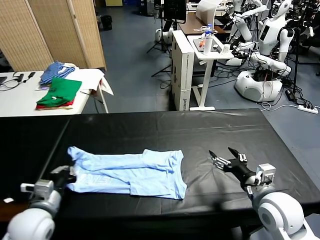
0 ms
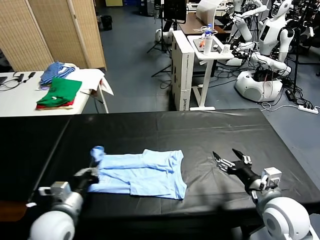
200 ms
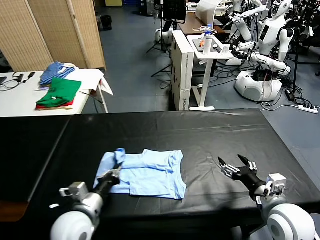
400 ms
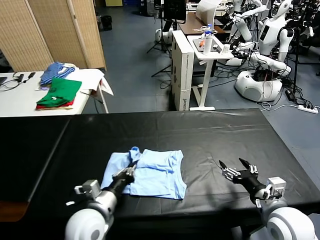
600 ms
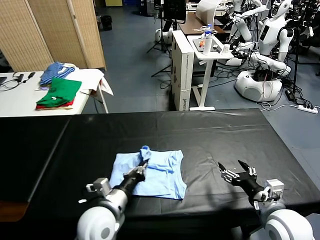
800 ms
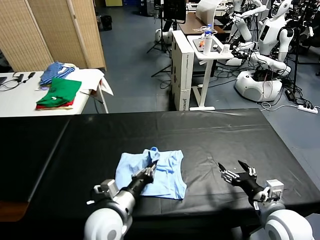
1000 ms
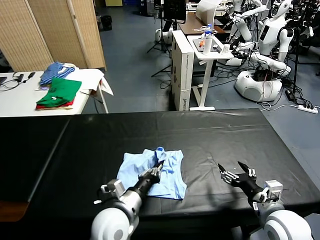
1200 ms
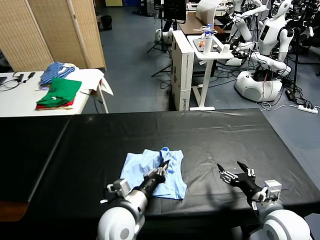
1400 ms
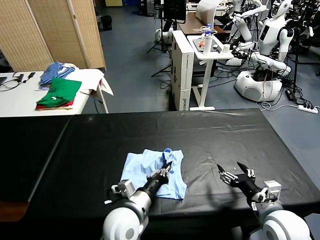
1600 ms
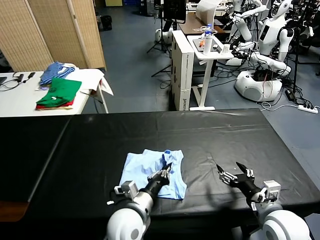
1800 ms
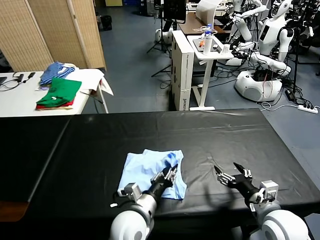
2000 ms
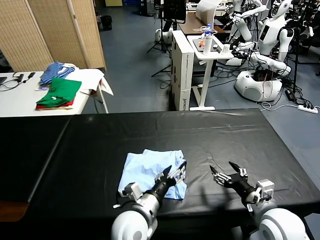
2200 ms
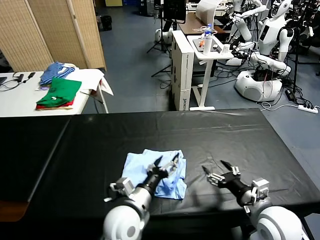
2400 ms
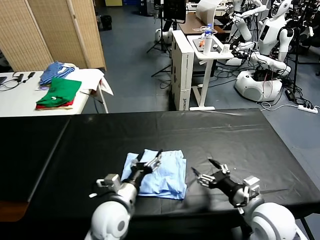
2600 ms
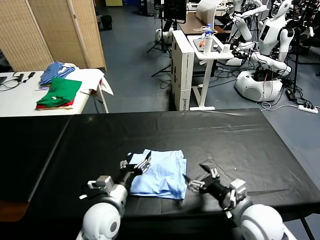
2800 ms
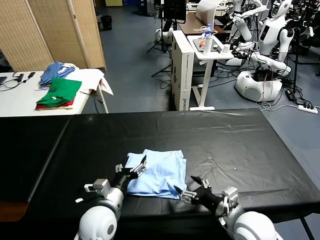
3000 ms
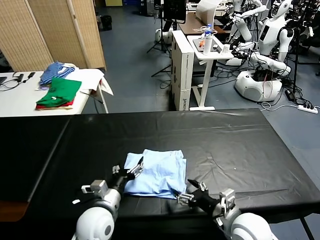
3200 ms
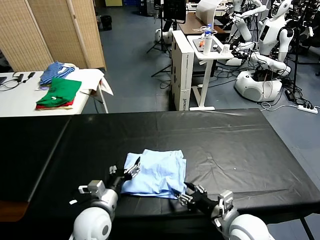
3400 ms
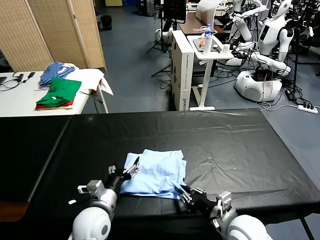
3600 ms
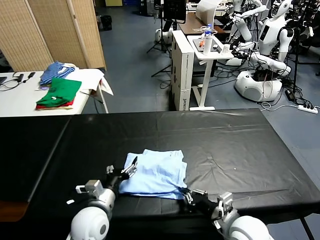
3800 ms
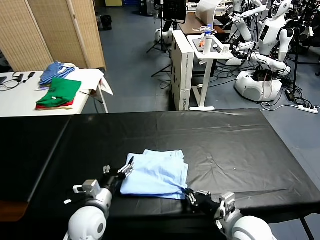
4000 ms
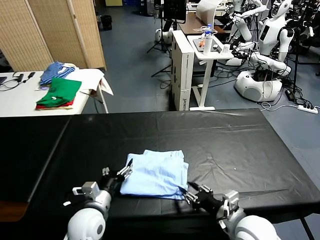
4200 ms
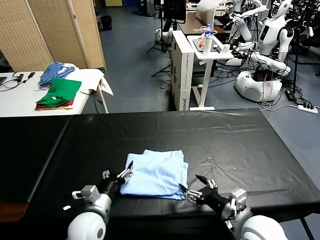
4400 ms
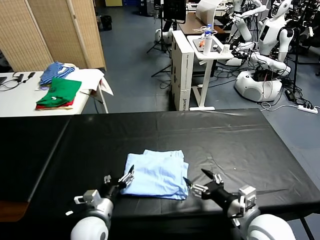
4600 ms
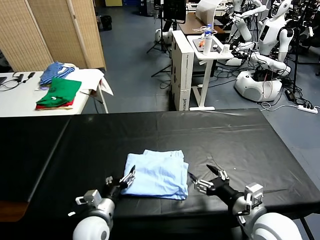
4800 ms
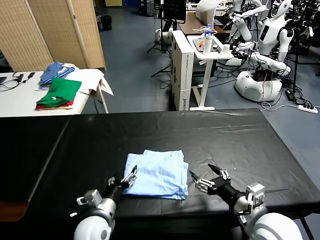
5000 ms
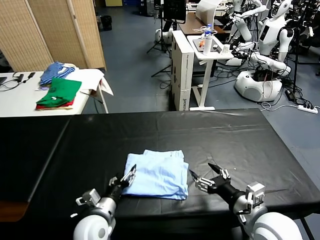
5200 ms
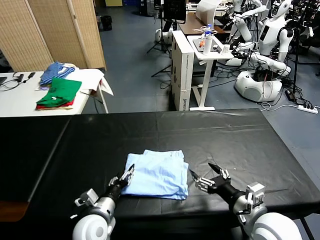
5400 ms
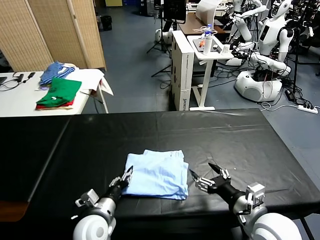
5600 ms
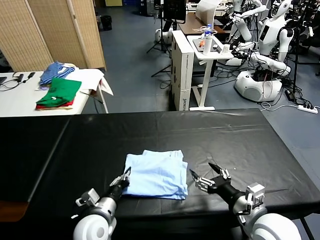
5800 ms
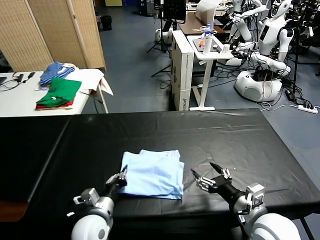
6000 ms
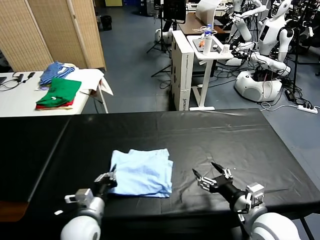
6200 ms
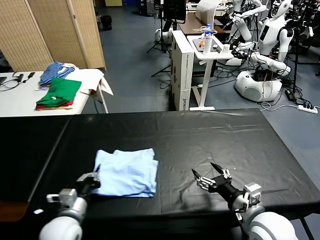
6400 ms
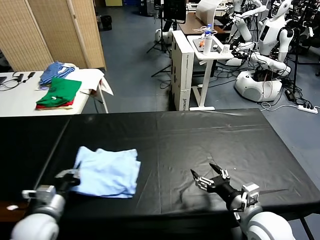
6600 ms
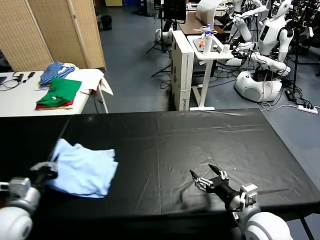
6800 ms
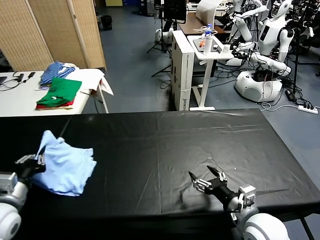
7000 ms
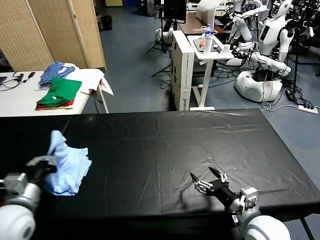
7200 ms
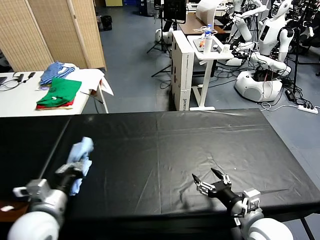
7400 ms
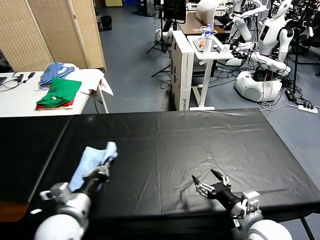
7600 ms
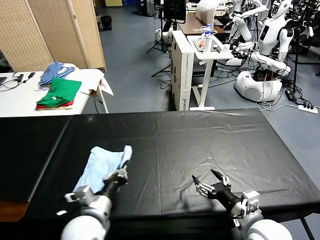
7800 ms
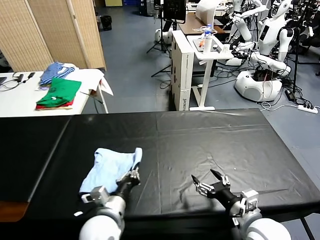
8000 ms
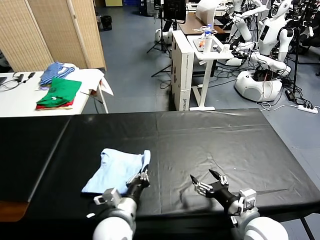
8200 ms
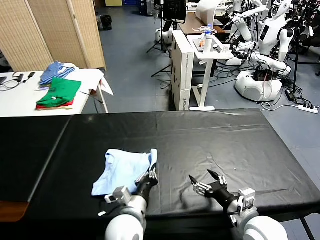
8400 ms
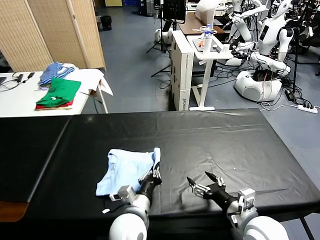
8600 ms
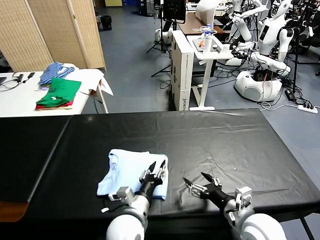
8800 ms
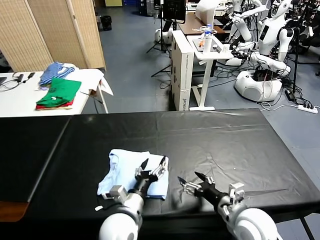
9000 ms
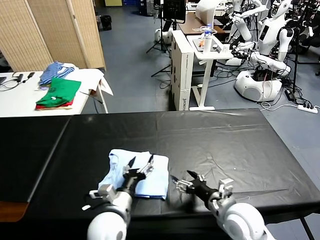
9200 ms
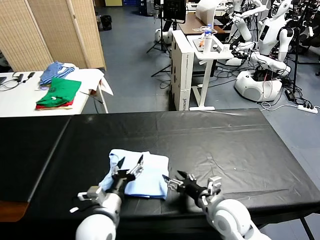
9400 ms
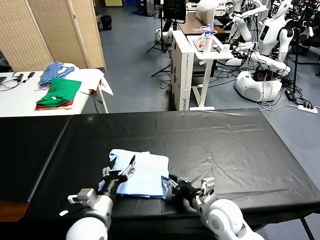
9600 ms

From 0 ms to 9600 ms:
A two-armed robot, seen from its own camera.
Task of the whole recording: fold and organize the clothes.
Step, from 0 ms to 2200 ms: use the left gripper to drag the left edge of the fabric to the left and folds it over the right edge.
Step, from 2400 ms to 8600 ms: Flip the folded clothes over with left gripper.
From 0 ms to 1600 ms: The left gripper goes approximately 25 cm to the right.
From 1600 ms to 3200 ms: Both grippers travel together to the left, about 10 cm. The left gripper opens up.
From 3200 ms to 4800 ms: The right gripper moves upward, approximately 5 cm, and closes, then opens again.
From 4800 ms to 6400 ms: The left gripper is displaced to the left by some 5 cm, and closes.
From 6400 ms to 8000 ms: The left gripper travels to the right by some 10 cm.
From 8000 ms to 9600 ms: The left gripper moves approximately 5 cm to the right and comes back, and opens. The right gripper moves to the left, forward and downward, approximately 10 cm, and closes up.

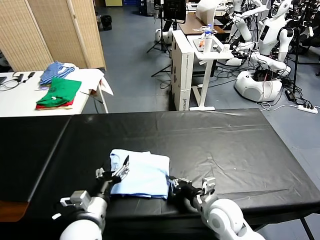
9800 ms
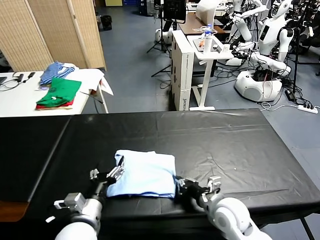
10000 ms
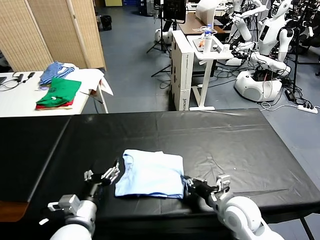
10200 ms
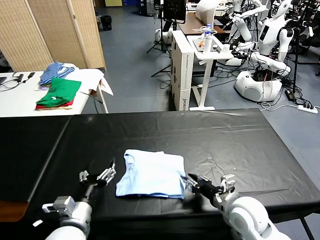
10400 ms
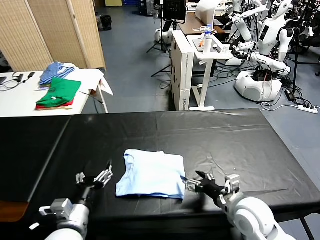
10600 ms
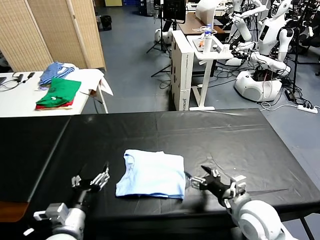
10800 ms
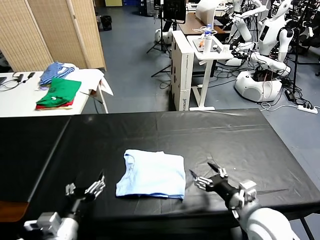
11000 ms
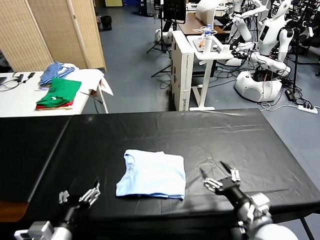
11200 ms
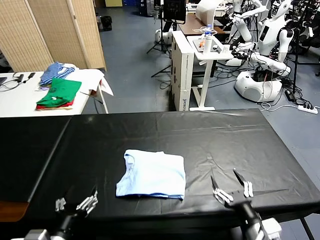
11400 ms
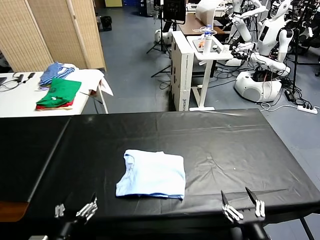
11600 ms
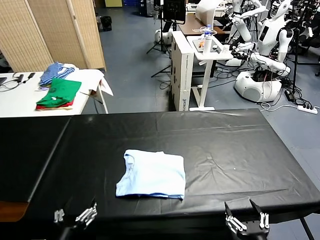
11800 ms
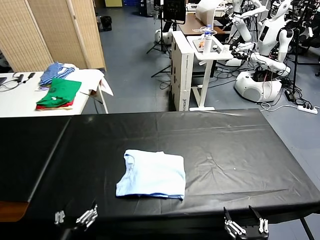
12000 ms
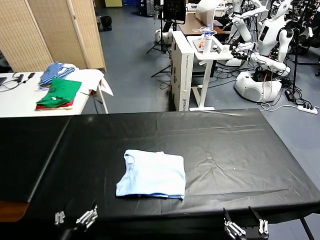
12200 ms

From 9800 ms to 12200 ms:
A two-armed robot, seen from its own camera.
Task of the whole recording: fold and organize the clothes.
From 9800 ms to 11000 ms: The left gripper heads backward, covering about 5 cm; the right gripper heads to the right and upward, covering roughly 10 cm, and opens up.
From 11000 ms to 12200 ms: The left gripper travels backward by roughly 5 cm; the right gripper is displaced backward by roughly 15 cm.
